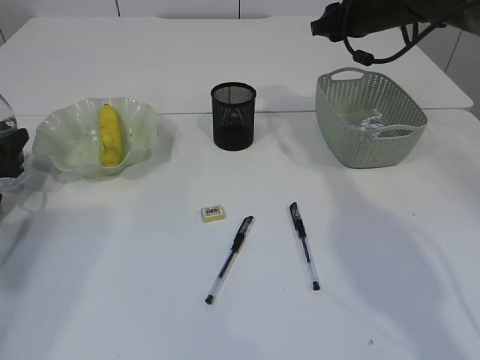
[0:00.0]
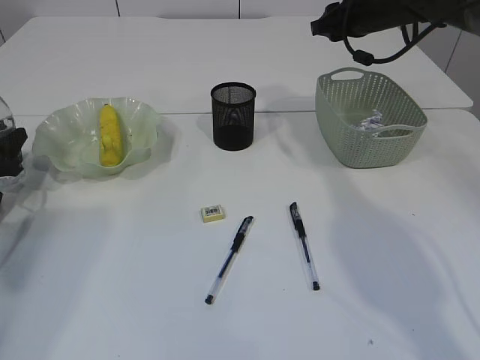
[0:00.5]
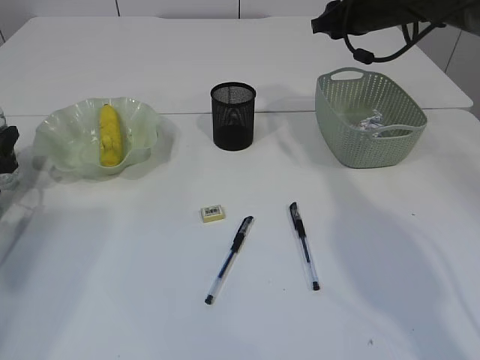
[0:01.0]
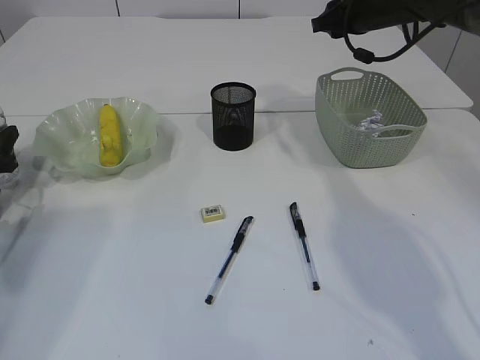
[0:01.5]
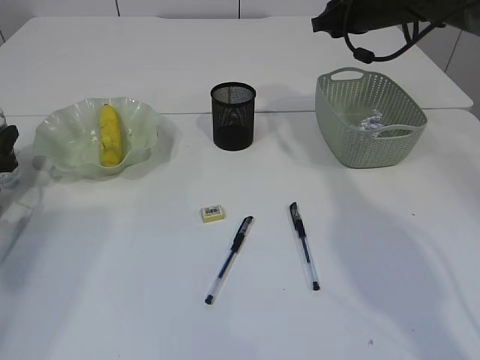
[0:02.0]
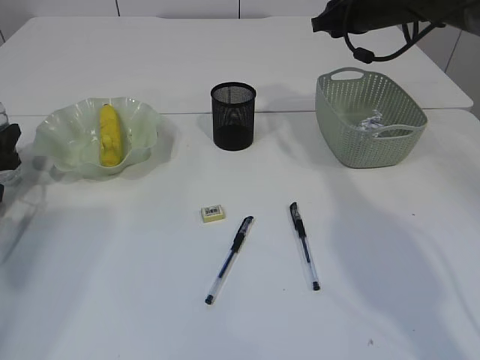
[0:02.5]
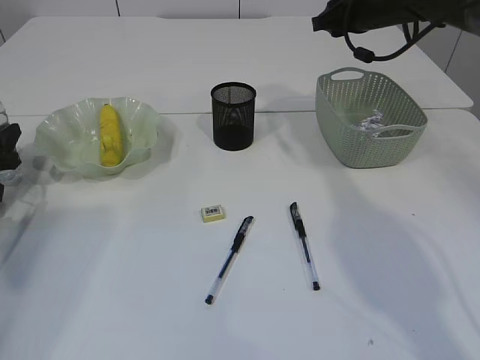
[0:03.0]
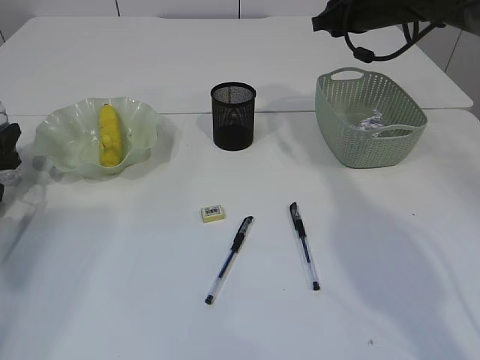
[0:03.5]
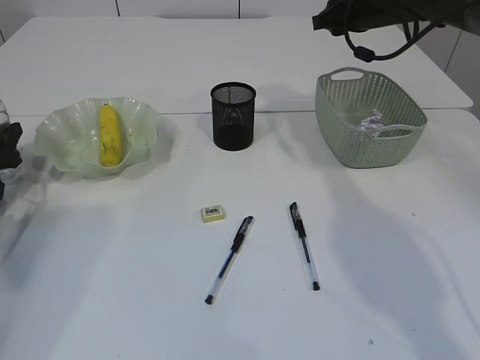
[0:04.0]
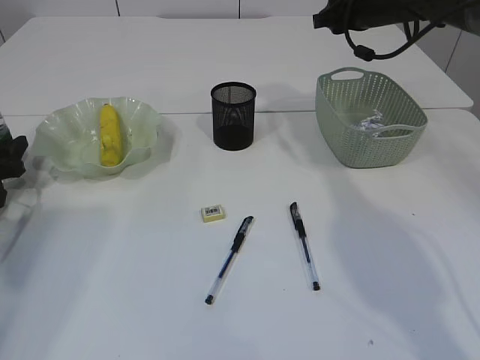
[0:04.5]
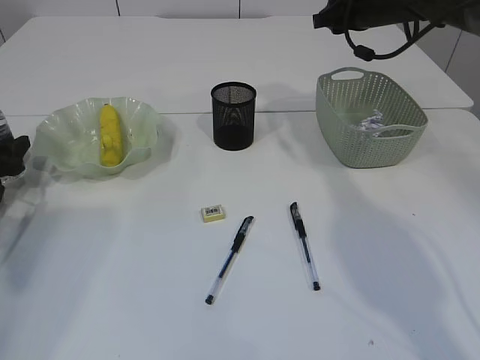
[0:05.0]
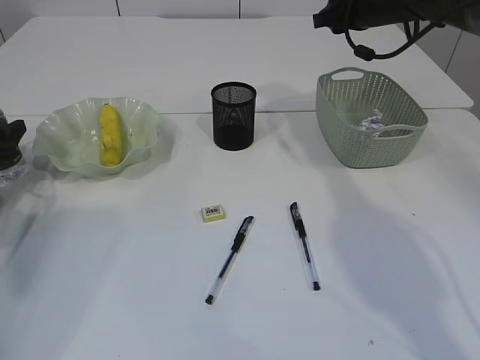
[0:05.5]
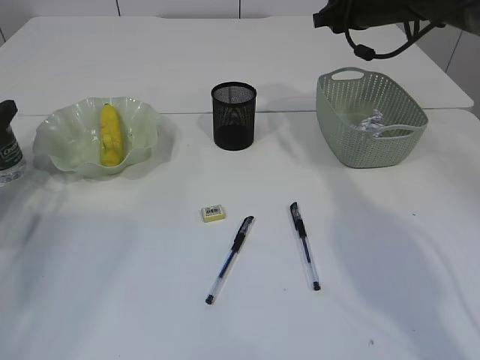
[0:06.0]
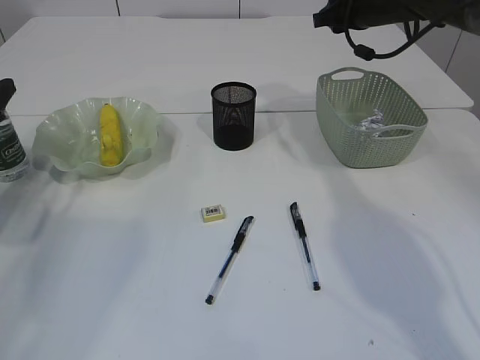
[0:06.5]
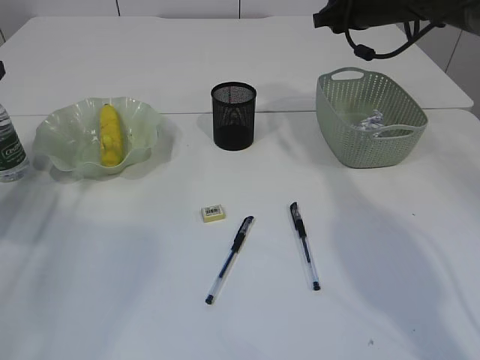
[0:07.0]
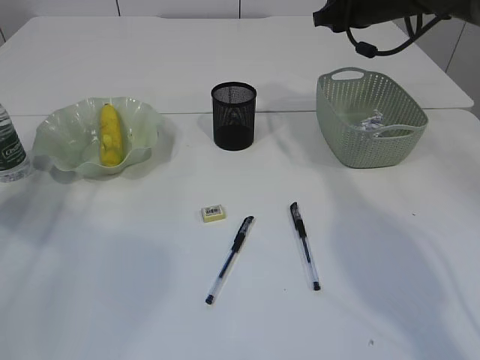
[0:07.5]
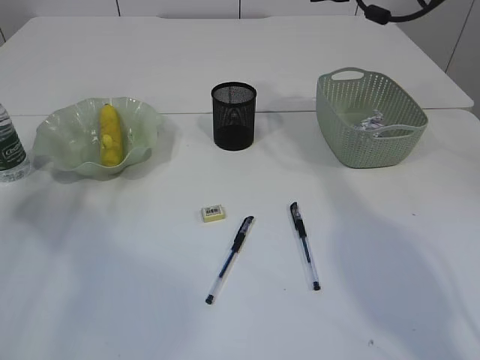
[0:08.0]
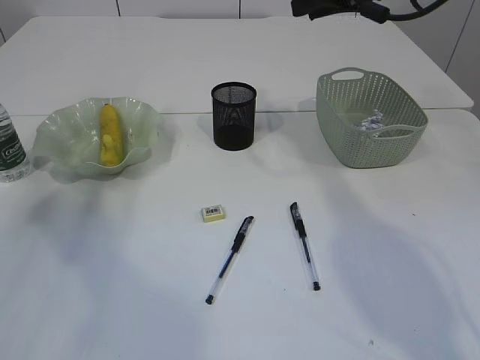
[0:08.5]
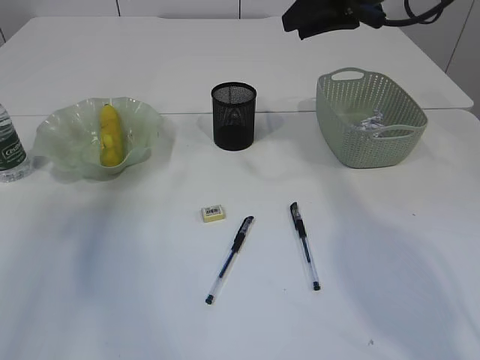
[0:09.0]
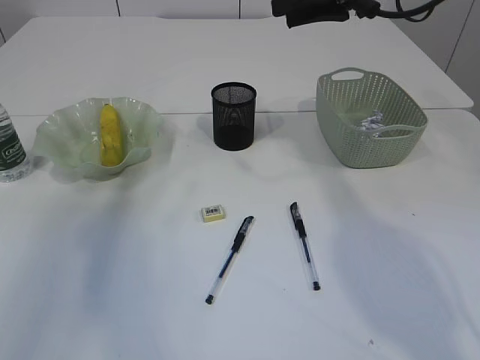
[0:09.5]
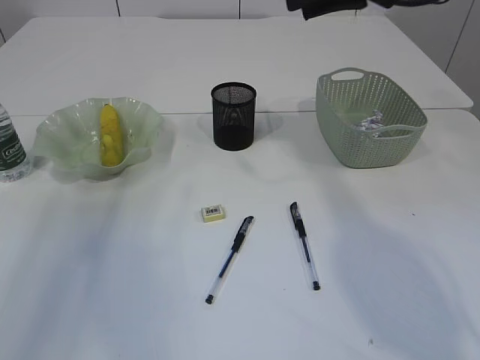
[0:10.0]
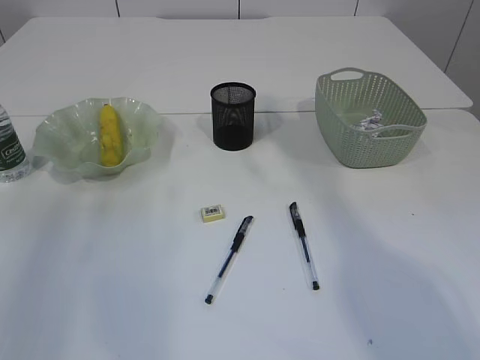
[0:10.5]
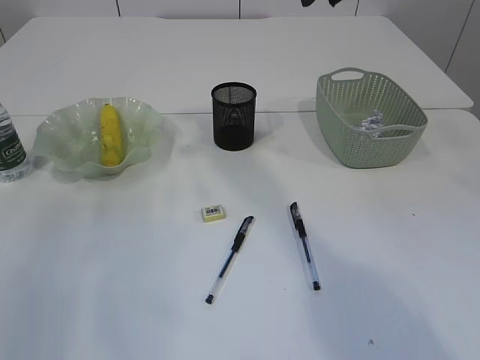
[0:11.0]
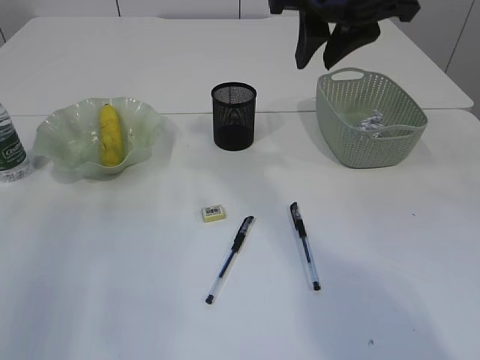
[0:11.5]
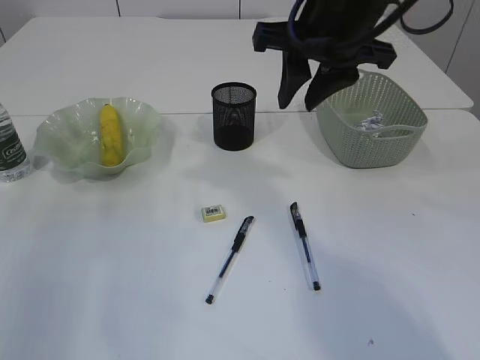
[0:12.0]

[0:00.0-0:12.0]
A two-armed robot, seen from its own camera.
Step, 0:00.0 to 0:07.5: Place the bottle.
0:00.0 to 0:02.0: There are only small adjustments of the grippers.
0:02.0 to 0:04.0: Both grippers stay put.
0:04.0 to 0:06.0: The left gripper travels upward by some 5 cm.
0:06.0 to 0:08.0: The left gripper is displaced upward by approximately 20 cm, while the right gripper travels upward by roughly 5 cm.
0:08.0 to 0:10.0: The right gripper moves backward, approximately 5 cm; the left gripper goes some 20 cm upward and backward.
0:10.0 to 0:12.0: The right gripper moves to the left and backward, roughly 10 cm.

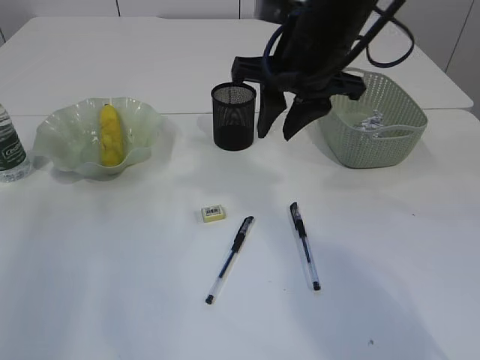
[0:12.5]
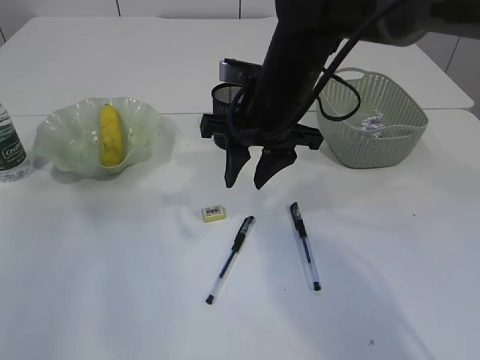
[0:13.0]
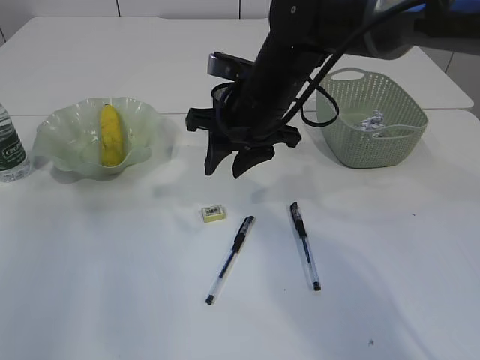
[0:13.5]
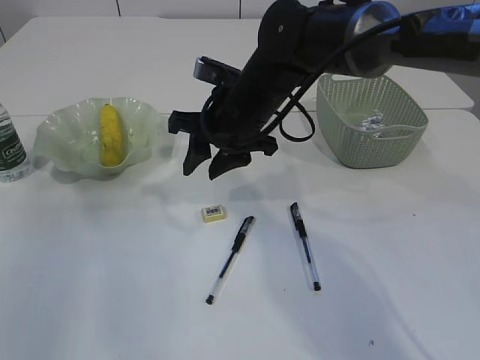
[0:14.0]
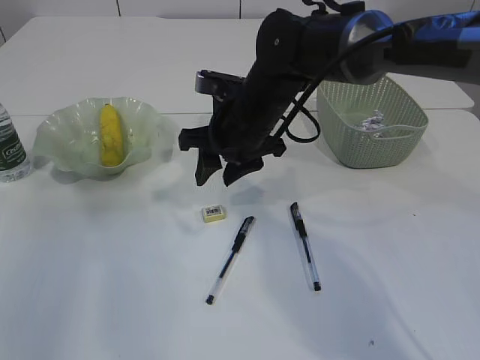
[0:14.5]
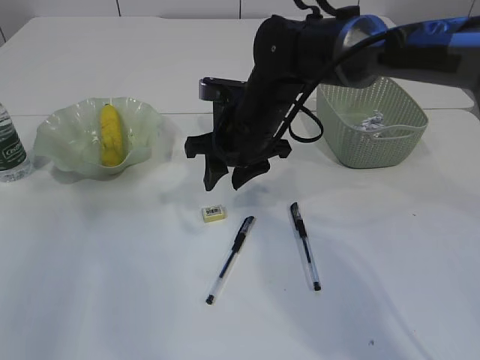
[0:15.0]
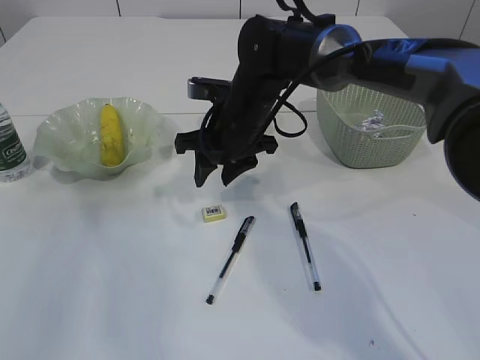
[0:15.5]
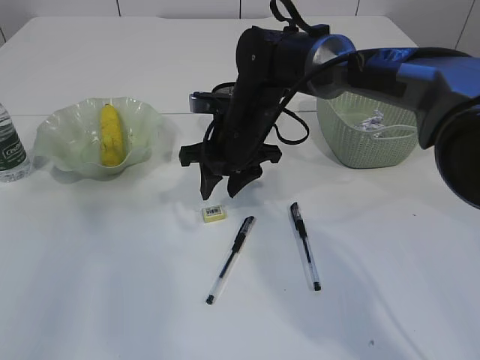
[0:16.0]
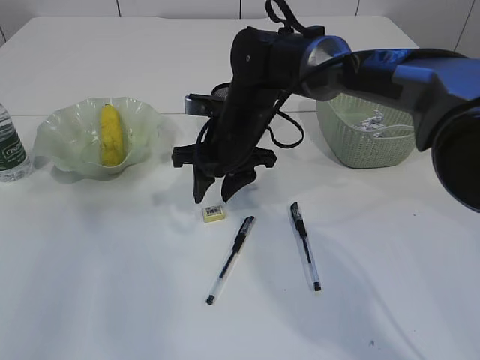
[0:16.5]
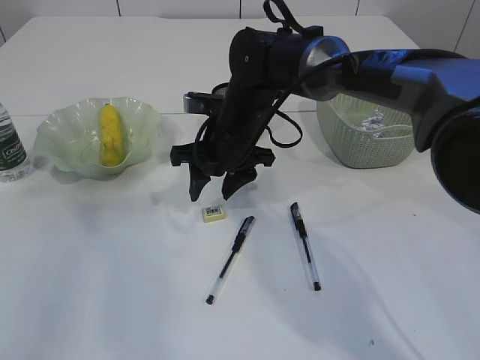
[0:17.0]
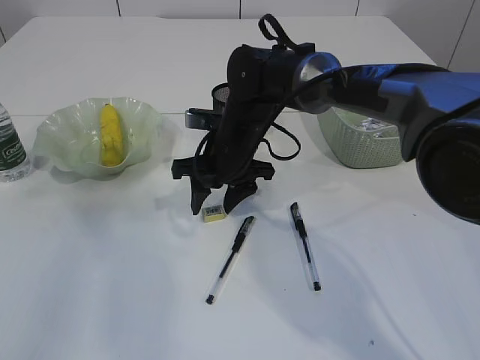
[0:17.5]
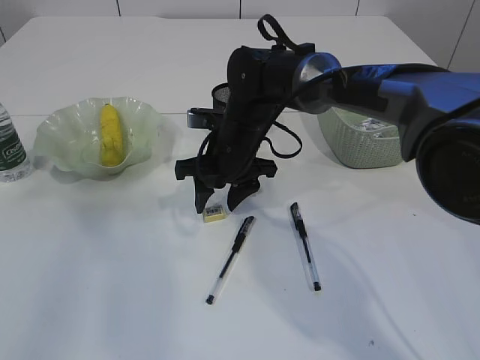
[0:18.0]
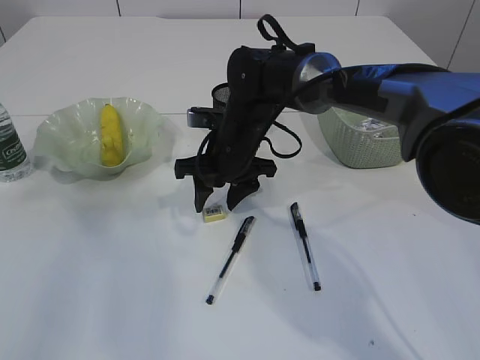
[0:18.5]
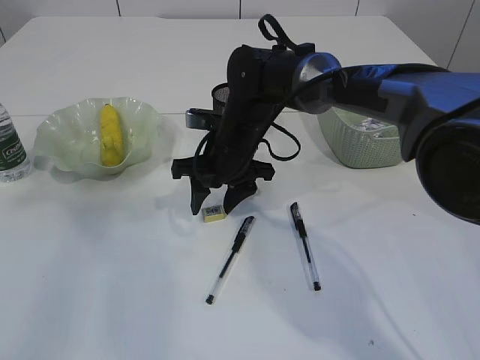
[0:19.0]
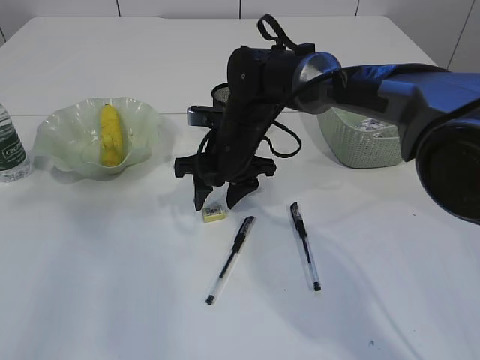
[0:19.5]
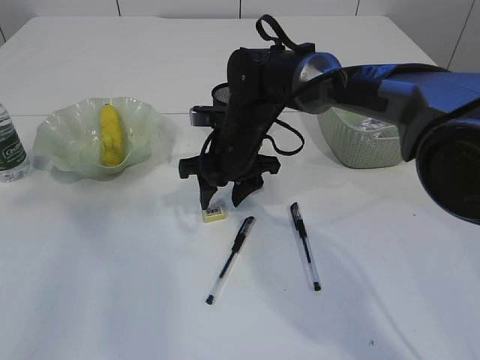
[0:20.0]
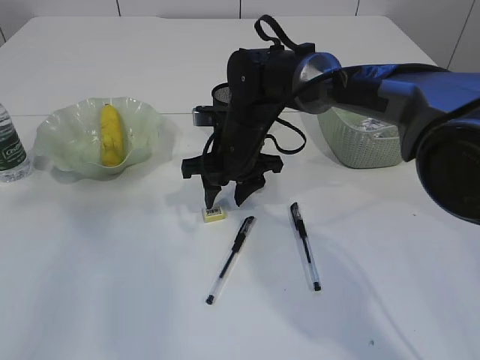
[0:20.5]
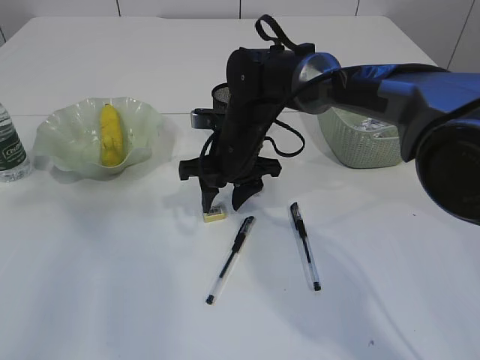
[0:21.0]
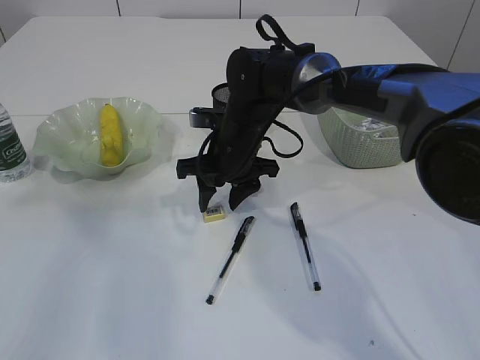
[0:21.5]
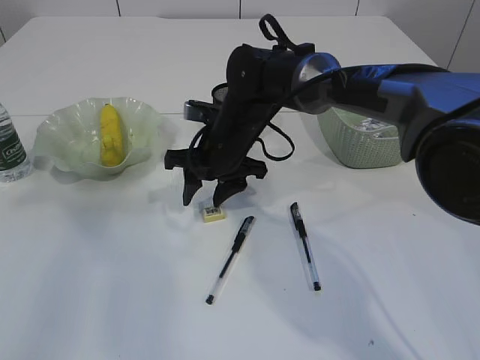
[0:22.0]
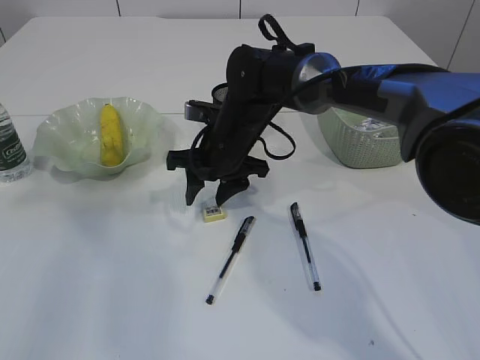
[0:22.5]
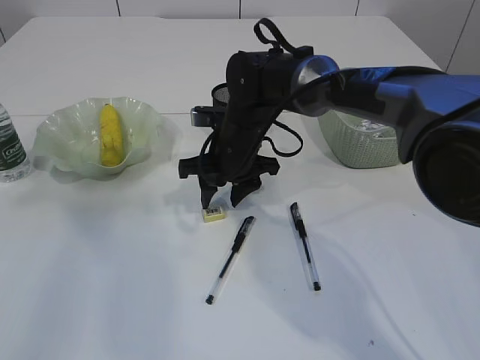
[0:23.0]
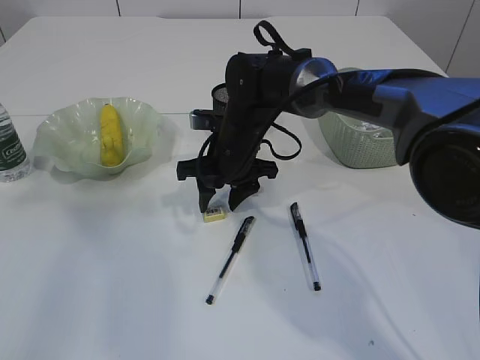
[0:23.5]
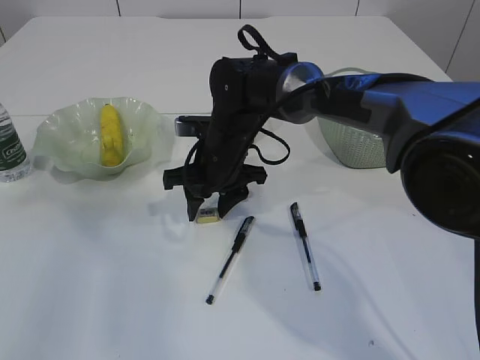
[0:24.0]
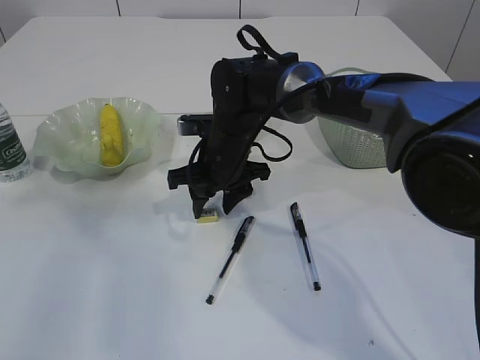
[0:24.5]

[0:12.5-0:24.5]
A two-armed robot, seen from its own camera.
0:12.5 to 0:14.5: The right gripper shifts approximately 10 cm downward and to the left.
0:14.5 to 0:18.5: There are only small adjustments of the grippers.
0:18.5 to 0:20.5: Both grippers stay about where they are.
0:20.5 to 0:24.5: The grippers move only a little.

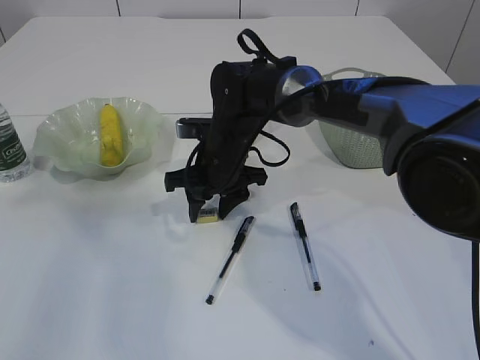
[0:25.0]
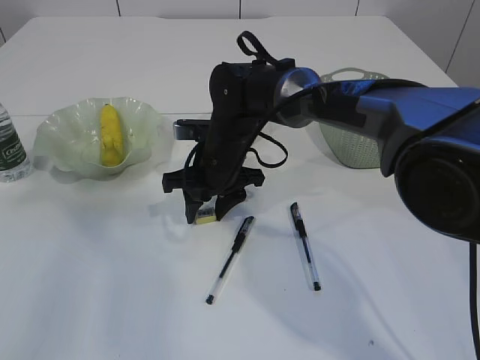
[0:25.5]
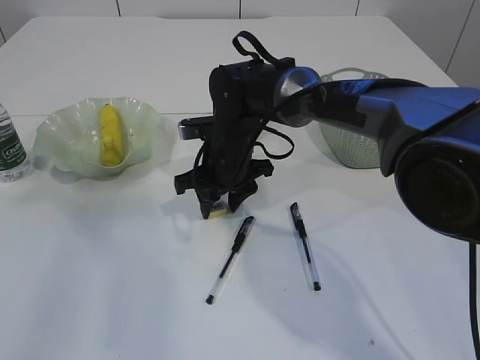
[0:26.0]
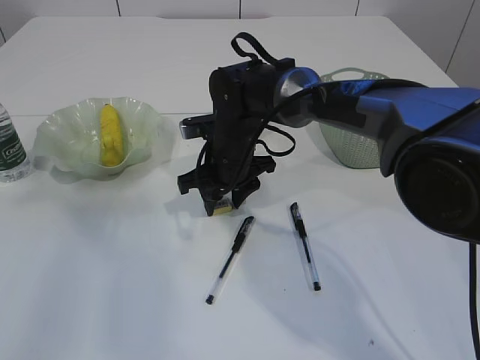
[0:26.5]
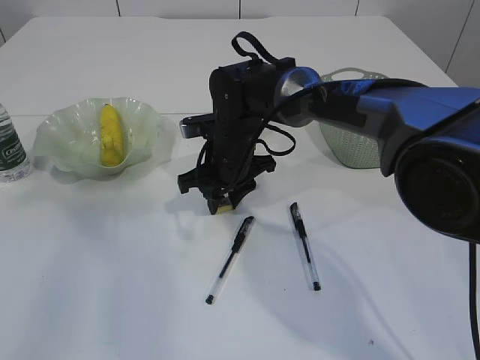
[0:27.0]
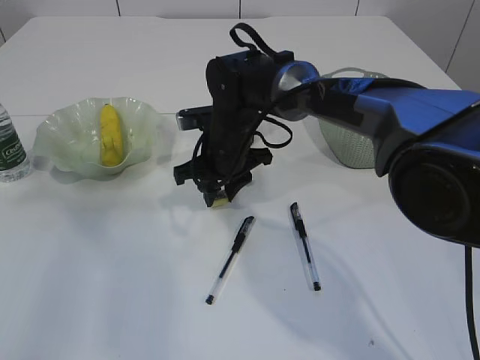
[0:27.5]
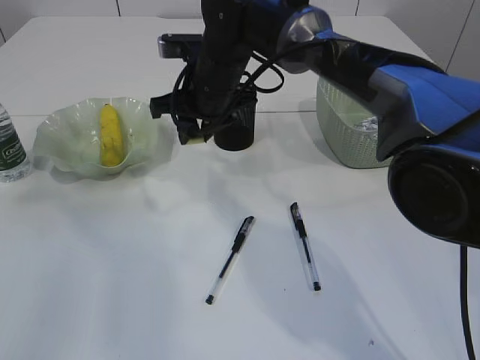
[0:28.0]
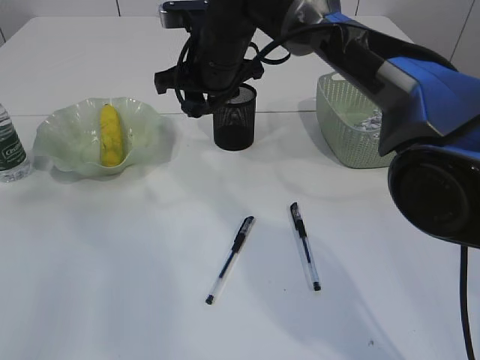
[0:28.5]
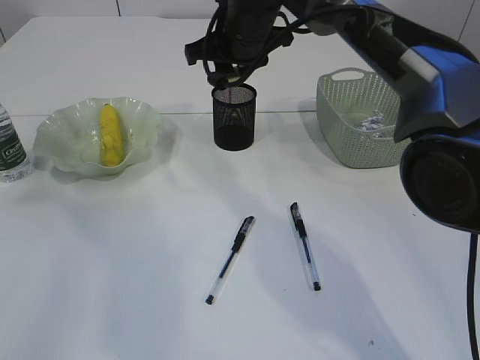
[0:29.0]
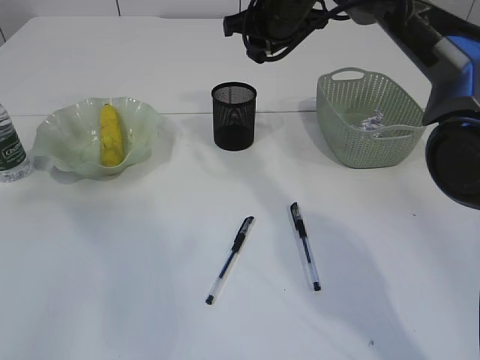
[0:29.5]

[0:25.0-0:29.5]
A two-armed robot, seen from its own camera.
Step, 0:25.0 to 0:27.5: Pick up the eraser.
0:25.0 to 0:27.0: There are only small adjustments of the grippers.
0:27.0 to 0:29.5: The right gripper shifts approximately 20 cm upward, to the right and forward.
